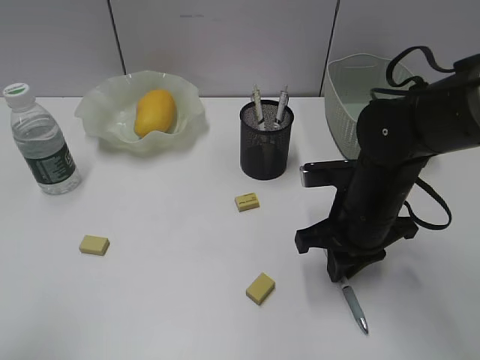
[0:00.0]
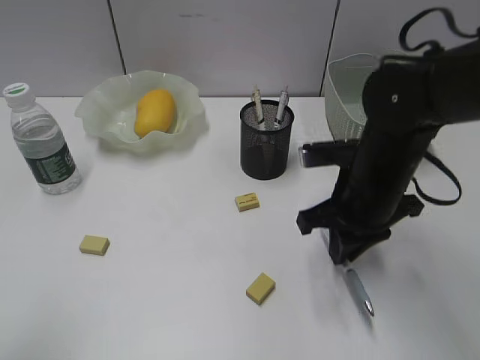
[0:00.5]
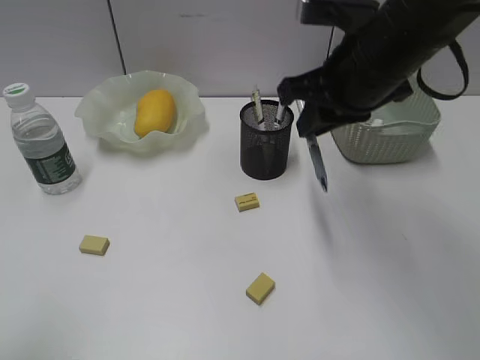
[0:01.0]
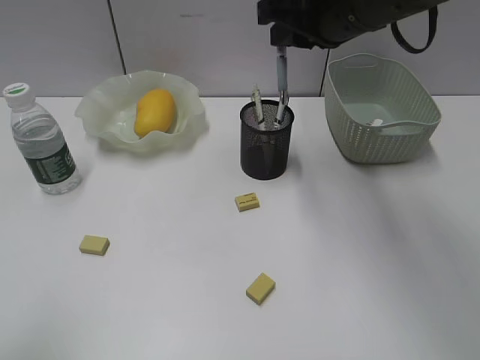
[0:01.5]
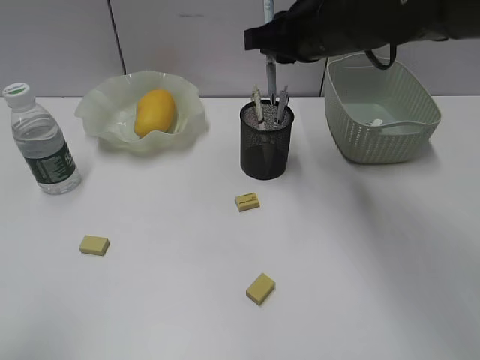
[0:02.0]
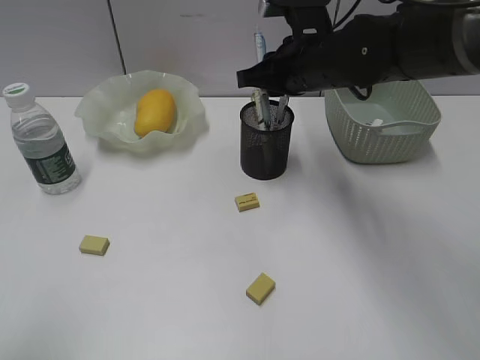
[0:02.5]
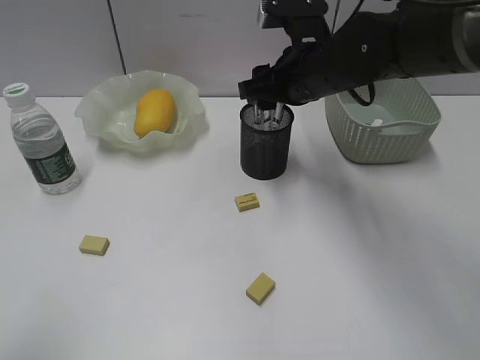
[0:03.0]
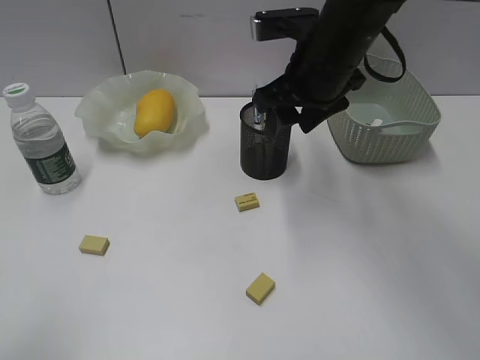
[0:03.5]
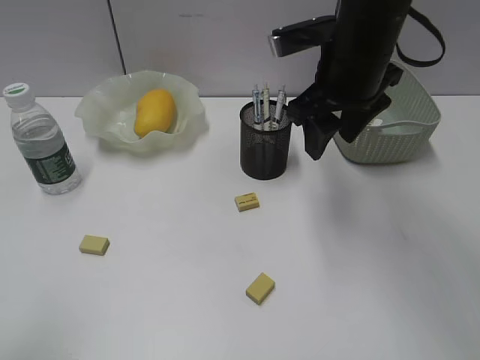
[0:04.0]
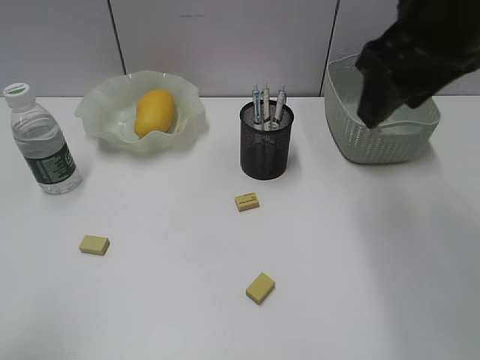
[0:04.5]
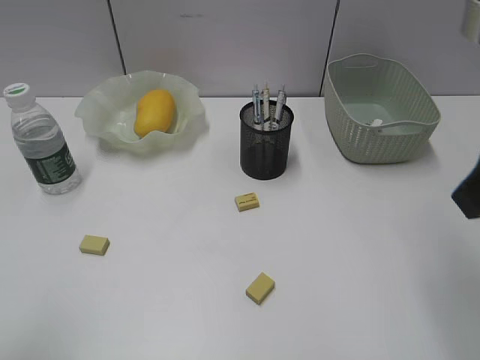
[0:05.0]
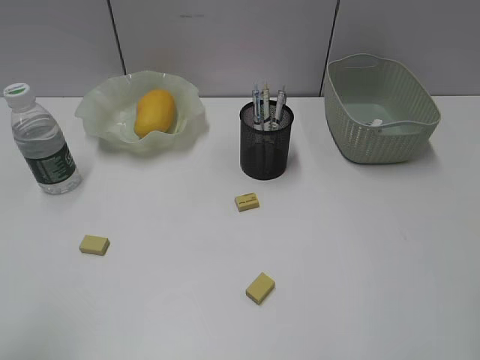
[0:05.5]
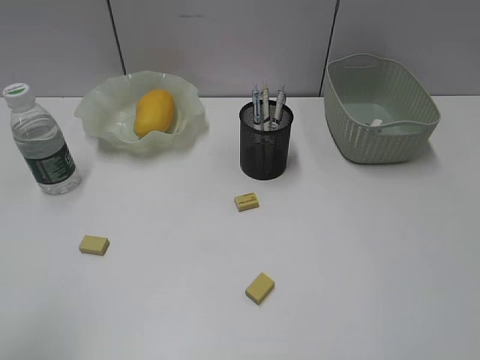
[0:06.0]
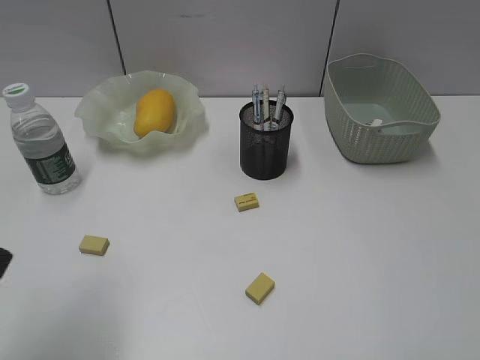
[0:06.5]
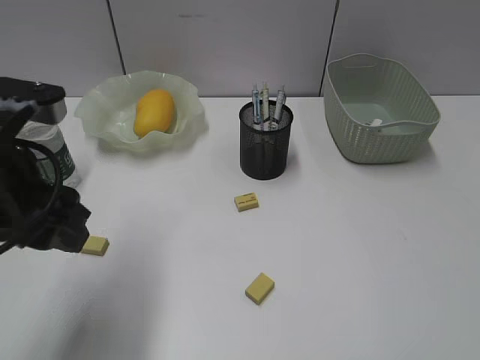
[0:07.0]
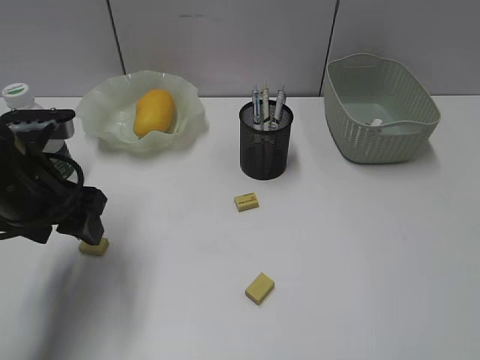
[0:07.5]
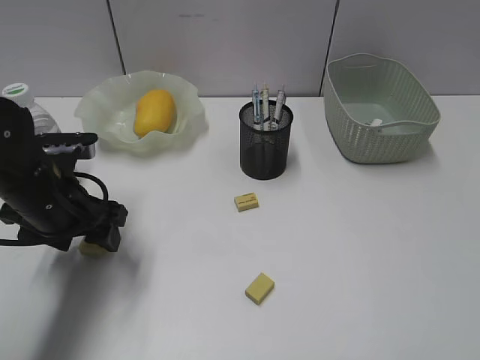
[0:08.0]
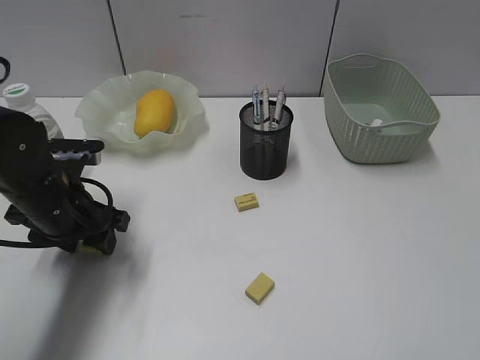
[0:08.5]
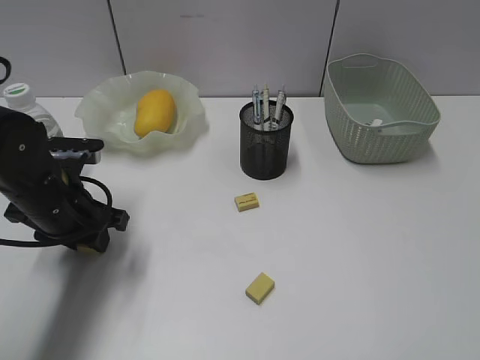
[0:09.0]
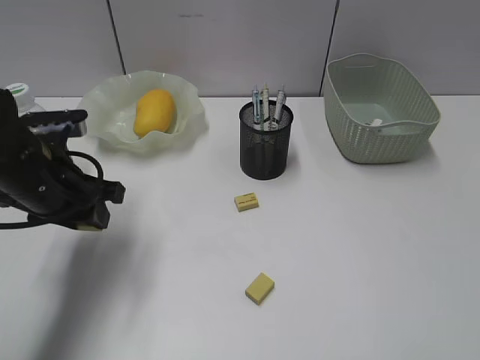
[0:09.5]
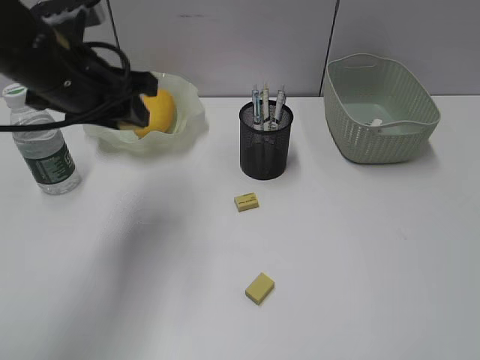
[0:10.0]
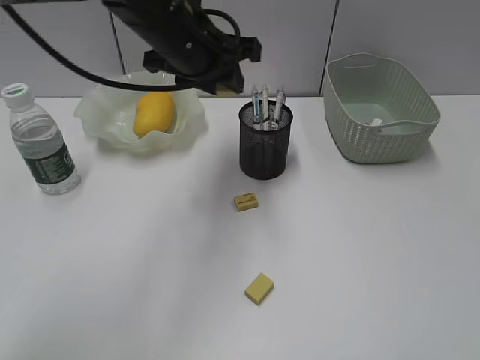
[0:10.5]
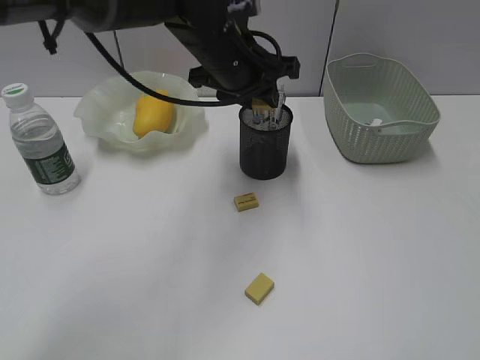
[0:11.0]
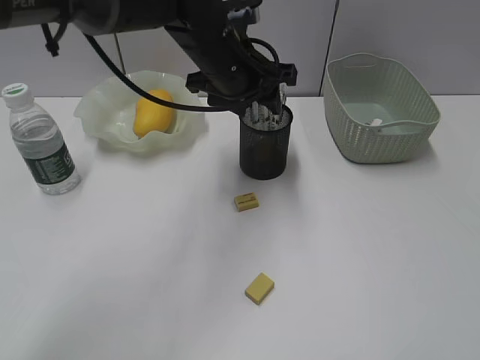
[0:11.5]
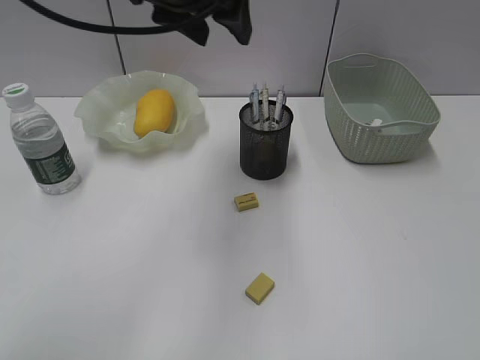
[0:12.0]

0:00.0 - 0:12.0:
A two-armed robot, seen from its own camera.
Step, 0:00.5 - 0:03.0: Place the blue pen in pen holder with right gripper.
Step, 0:03.5 - 0:09.0: Grasp the eraser with left gripper.
Step, 0:09.5 - 0:11.0: Place the eraser in pen holder with left gripper.
0:00.0 - 0:02.0: The right gripper heads upward and forward, covering some 20 cm.
0:02.0 - 0:04.0: The right gripper opens its fingers.
0:04.0 - 0:06.0: The right gripper goes some 35 cm backward and to the right.
0:06.0 - 0:08.0: The left gripper moves forward and downward, approximately 25 cm.
0:08.0 - 0:10.0: The left gripper is displaced upward by some 10 cm, and closes its fingers.
0:10.0 - 0:12.0: The left gripper shifts roughly 15 cm to the right and upward.

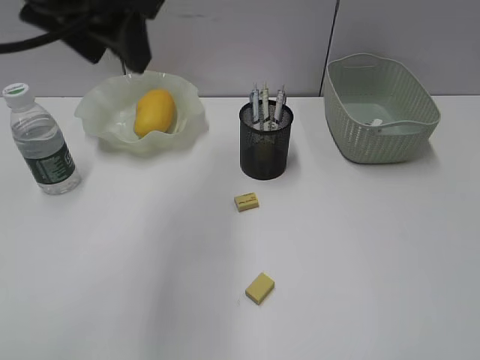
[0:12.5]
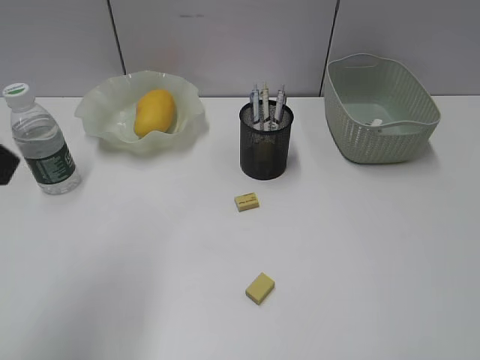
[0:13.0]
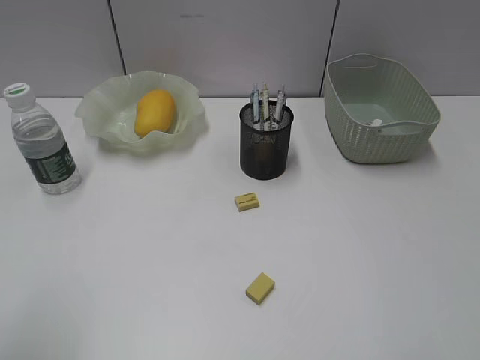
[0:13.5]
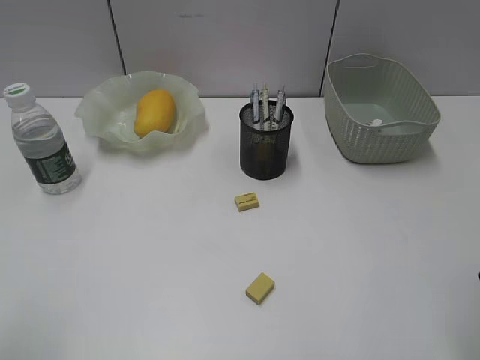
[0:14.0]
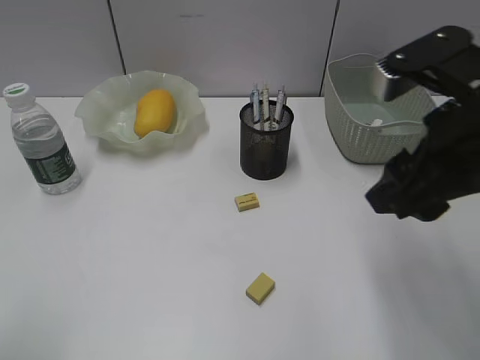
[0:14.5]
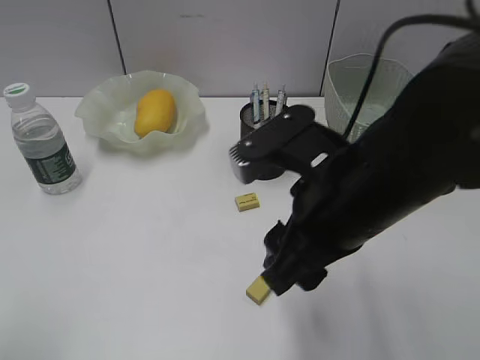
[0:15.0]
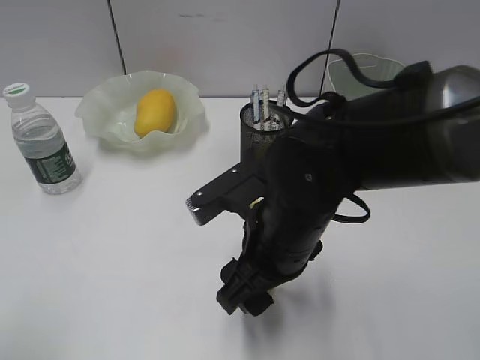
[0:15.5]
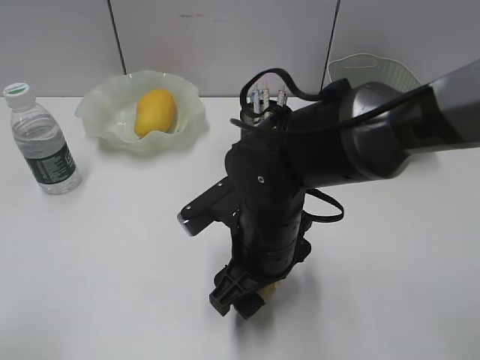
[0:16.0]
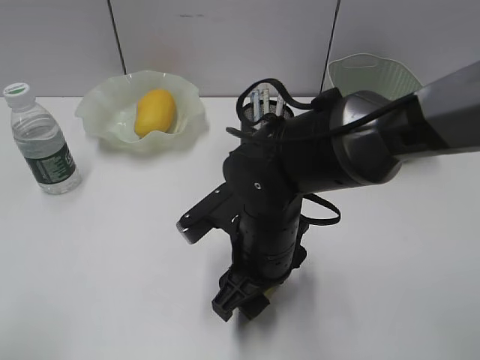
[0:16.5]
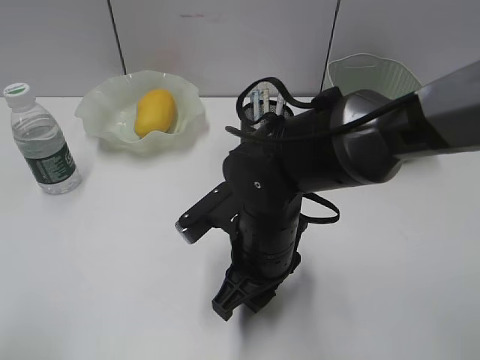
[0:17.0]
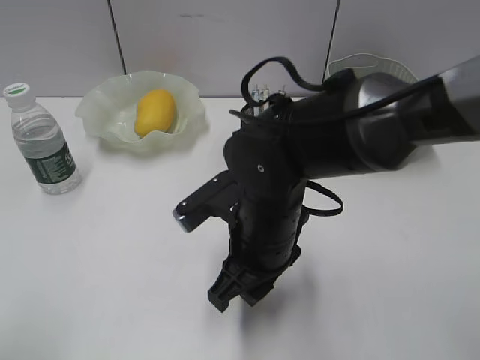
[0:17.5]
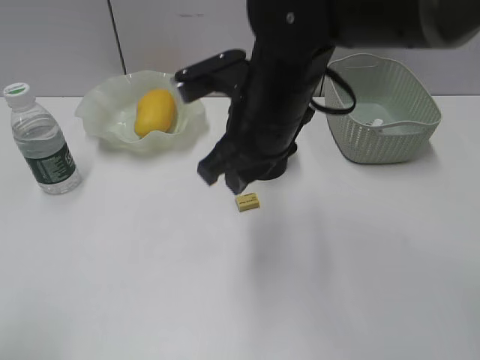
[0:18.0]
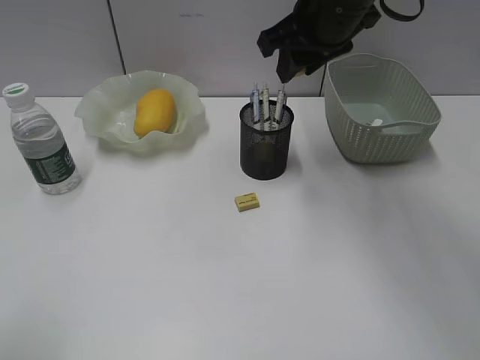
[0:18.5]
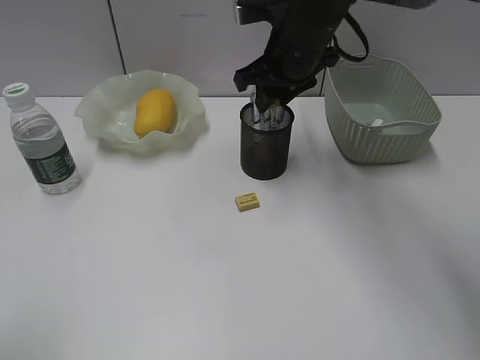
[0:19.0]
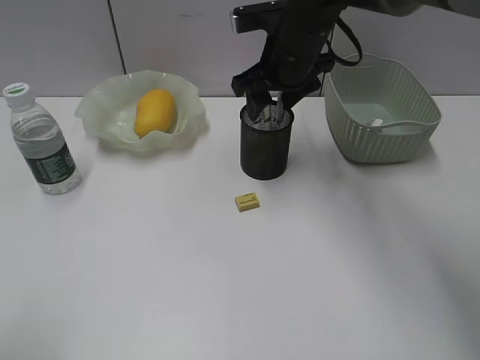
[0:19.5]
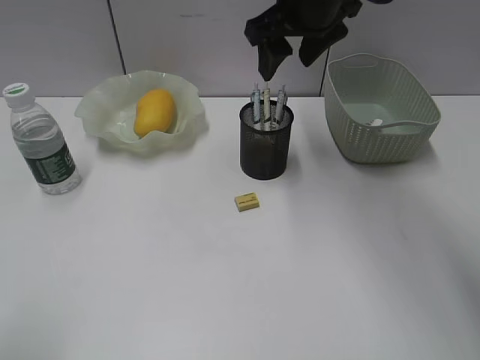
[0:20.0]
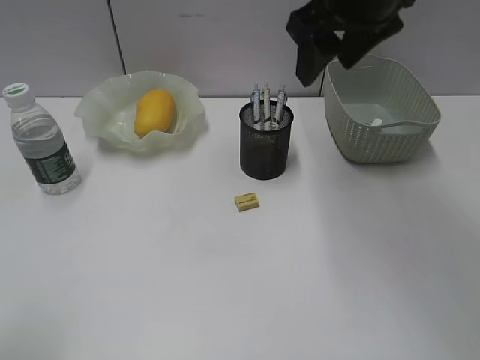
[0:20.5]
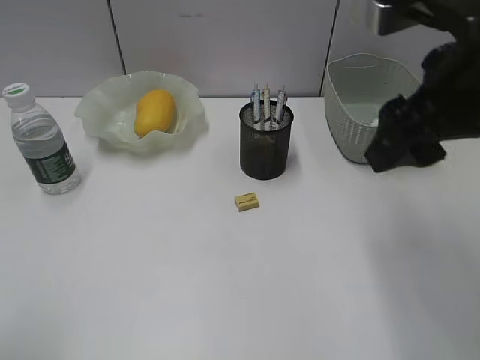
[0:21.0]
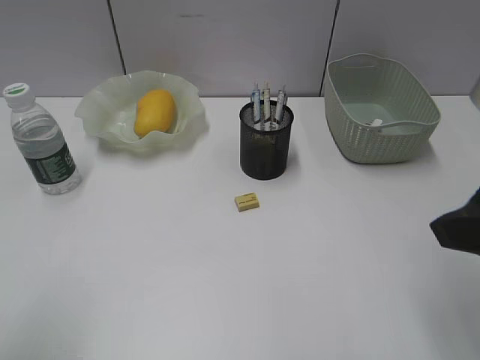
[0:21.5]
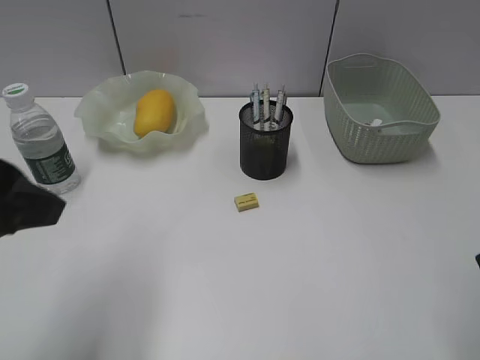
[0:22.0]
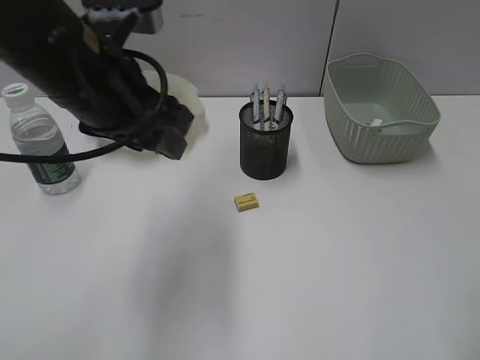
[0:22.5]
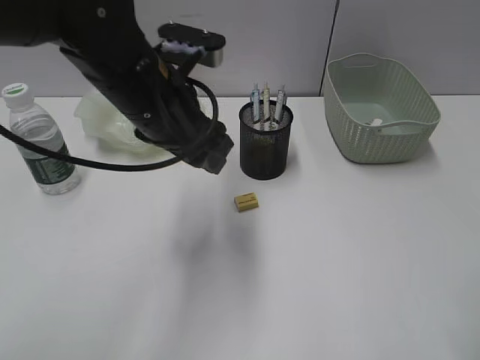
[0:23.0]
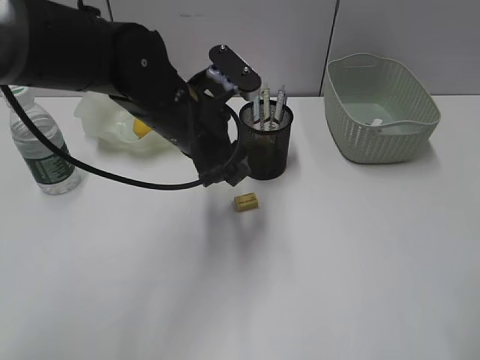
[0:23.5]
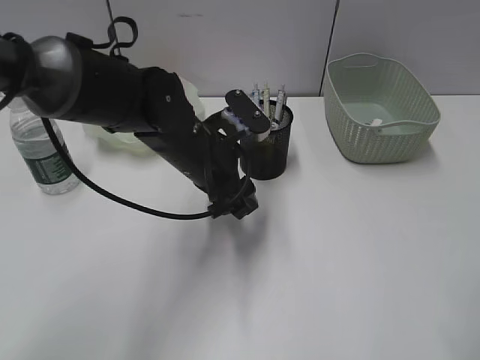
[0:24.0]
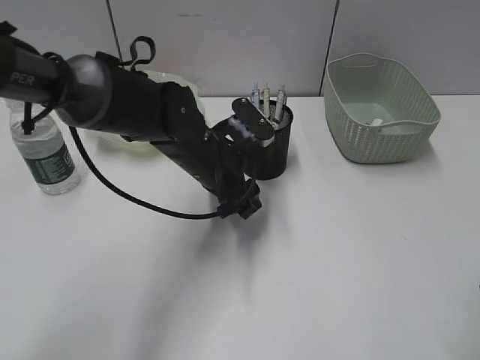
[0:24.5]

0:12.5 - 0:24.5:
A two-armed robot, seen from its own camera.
Step, 0:12.5 - 0:17.0: Grasp the eraser with right gripper.
Step, 0:17.5 - 0:19.5: Place the eraser in pen holder with right gripper.
0:12.5 - 0:14.5: The left gripper is displaced backward, to the left and downward by about 30 cm. The right gripper goes approximately 20 cm forward and to the left.
0:14.5 - 0:16.5: The right gripper moves downward and to the left, about 20 cm.
0:16.5 - 0:18.5: The right gripper is displaced upward and forward by approximately 25 cm, and closes up.
0:18.5 - 0:20.5: The right gripper moves about 5 cm, and opens.
0:20.5 - 0:22.5: The left gripper goes some 30 cm forward and to the right. Meanwhile the right gripper shifts some 30 cm backward and to the right.
0:22.5 - 0:24.5: The left gripper is displaced downward, to the right and forward by approximately 20 cm.

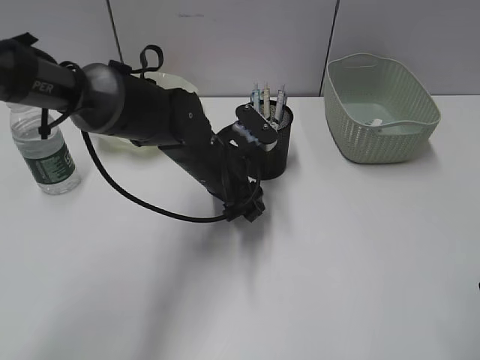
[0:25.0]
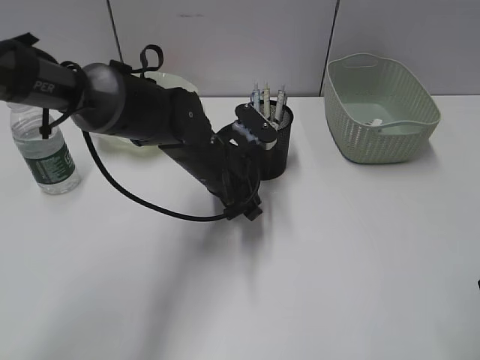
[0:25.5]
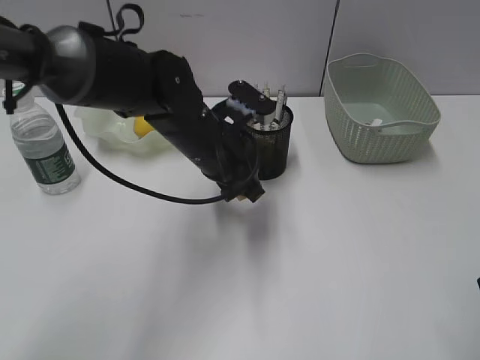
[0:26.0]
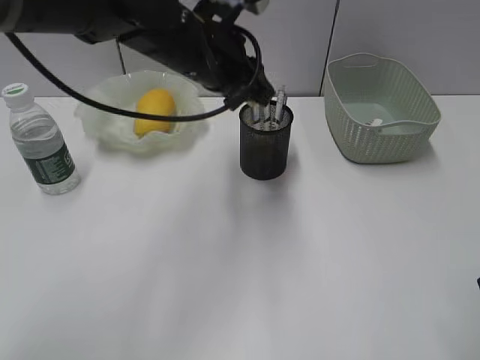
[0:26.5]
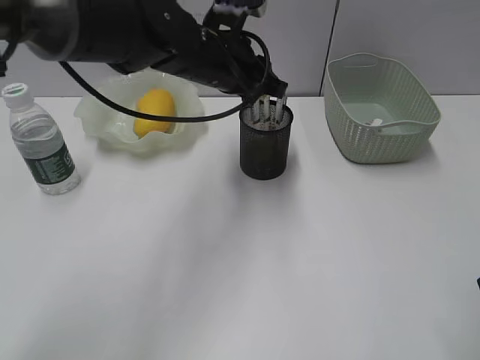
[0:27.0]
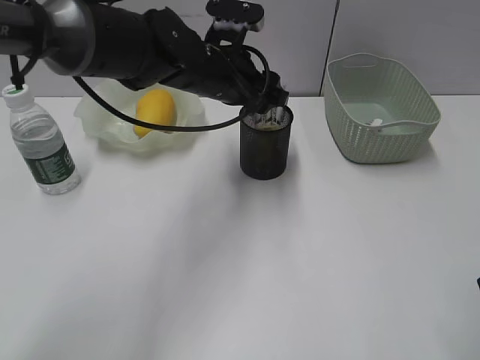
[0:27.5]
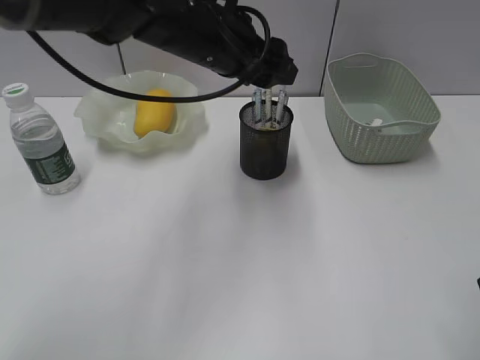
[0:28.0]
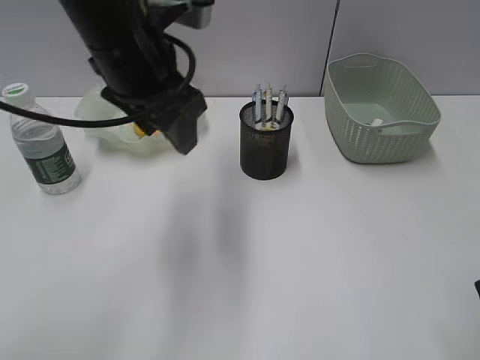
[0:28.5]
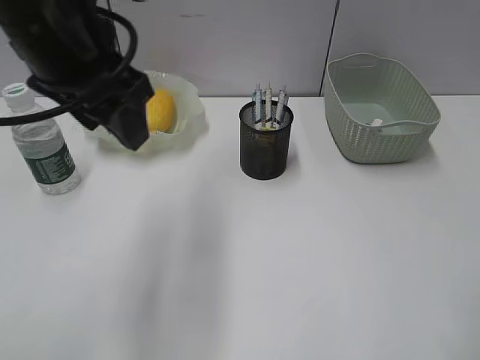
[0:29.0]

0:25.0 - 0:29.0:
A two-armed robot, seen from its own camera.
Step, 0:26.0 - 0:27.5: Place the eraser in pen holder with left gripper.
0:25.0 - 0:27.0: The left gripper travels upward by roughly 10 cm, and closes up.
0:27.0 - 0:29.0: The left gripper moves backward, to the left and upward, about 20 cm, and opens its fingers.
